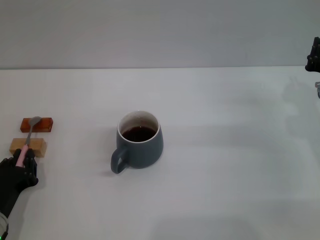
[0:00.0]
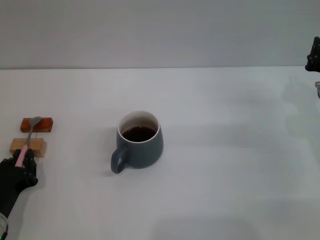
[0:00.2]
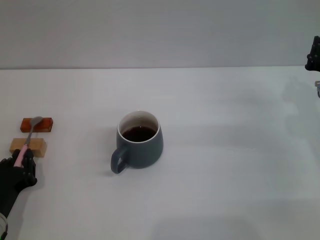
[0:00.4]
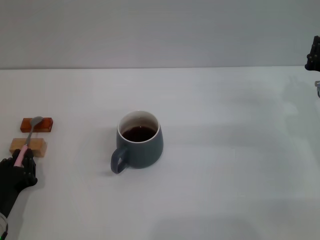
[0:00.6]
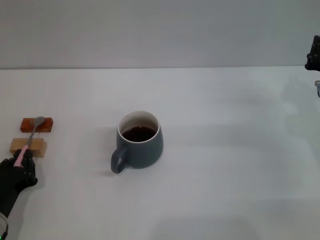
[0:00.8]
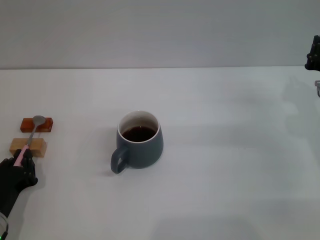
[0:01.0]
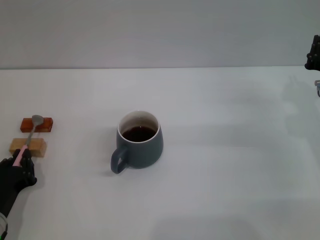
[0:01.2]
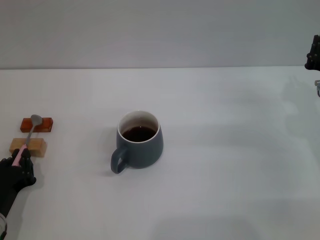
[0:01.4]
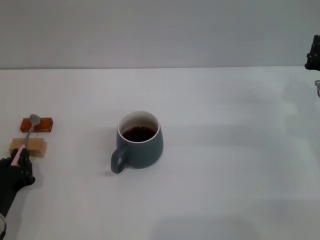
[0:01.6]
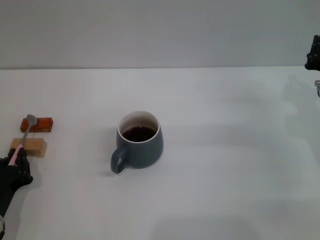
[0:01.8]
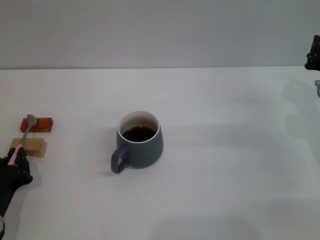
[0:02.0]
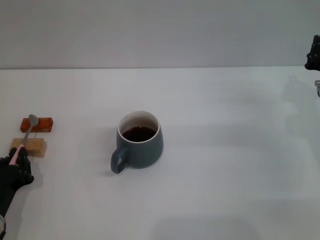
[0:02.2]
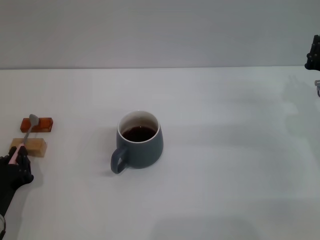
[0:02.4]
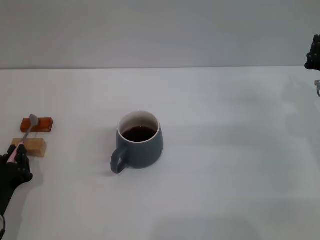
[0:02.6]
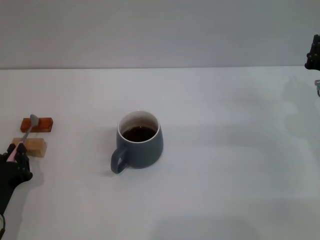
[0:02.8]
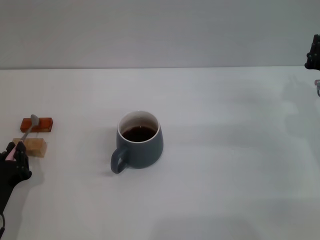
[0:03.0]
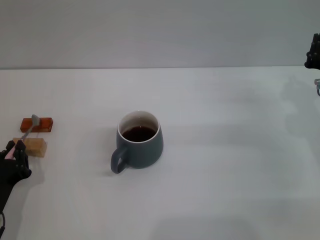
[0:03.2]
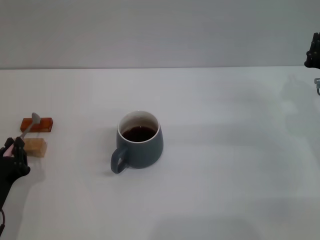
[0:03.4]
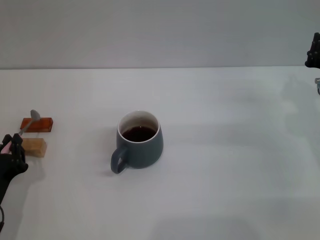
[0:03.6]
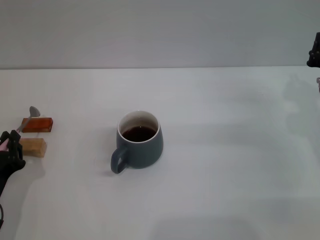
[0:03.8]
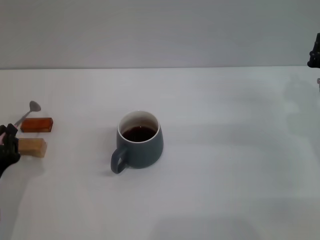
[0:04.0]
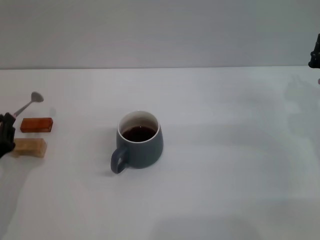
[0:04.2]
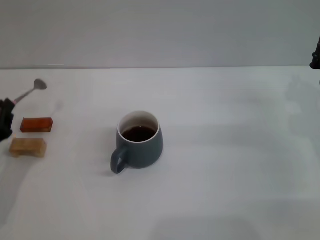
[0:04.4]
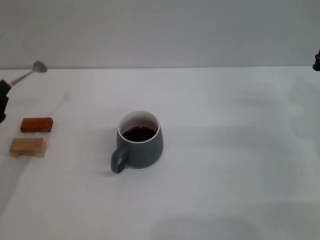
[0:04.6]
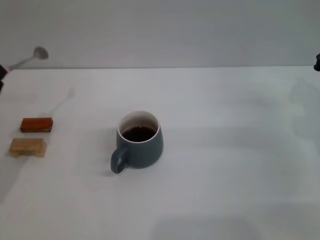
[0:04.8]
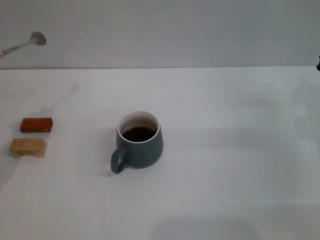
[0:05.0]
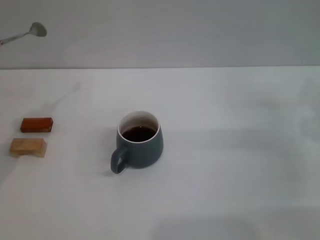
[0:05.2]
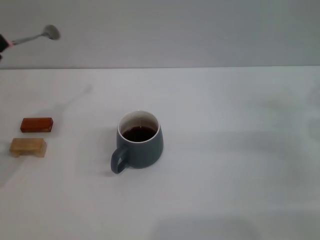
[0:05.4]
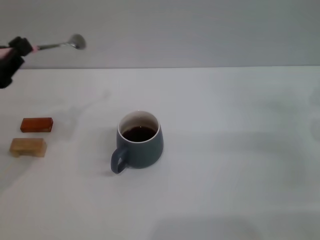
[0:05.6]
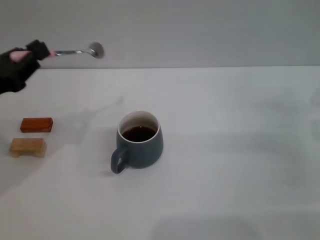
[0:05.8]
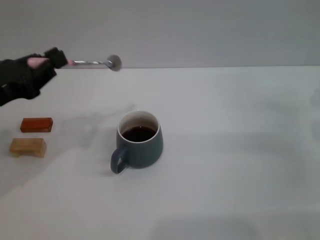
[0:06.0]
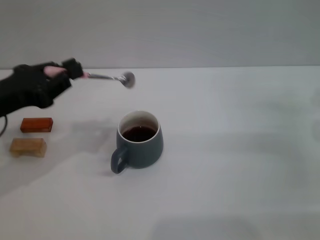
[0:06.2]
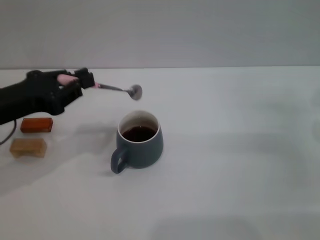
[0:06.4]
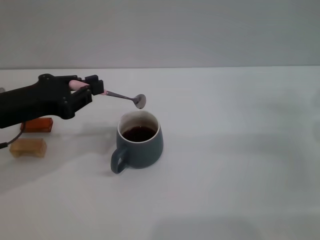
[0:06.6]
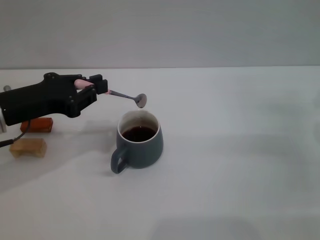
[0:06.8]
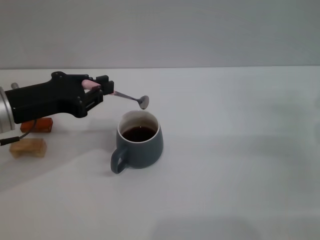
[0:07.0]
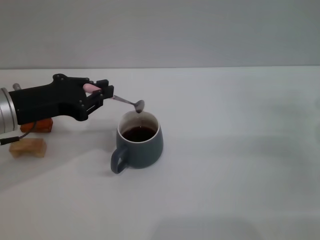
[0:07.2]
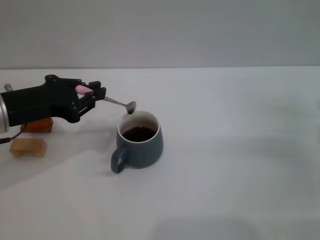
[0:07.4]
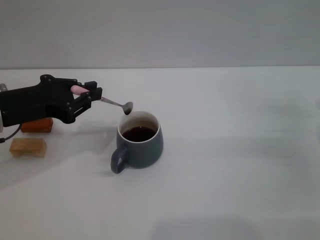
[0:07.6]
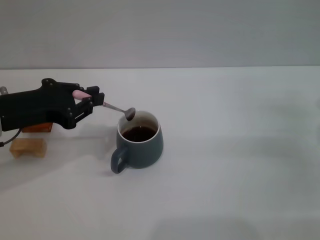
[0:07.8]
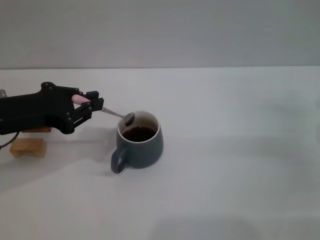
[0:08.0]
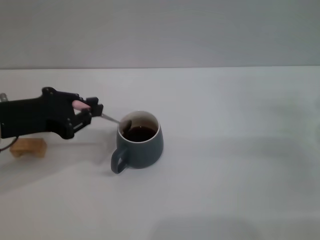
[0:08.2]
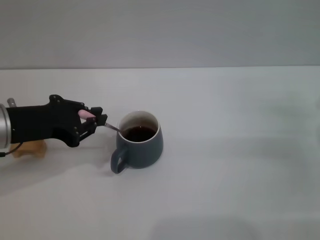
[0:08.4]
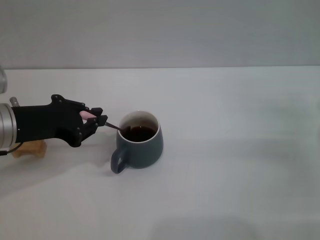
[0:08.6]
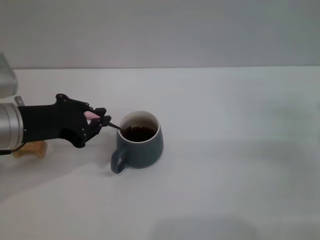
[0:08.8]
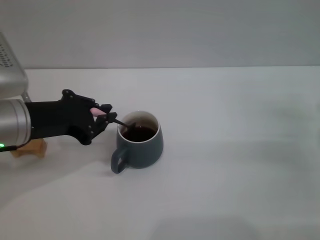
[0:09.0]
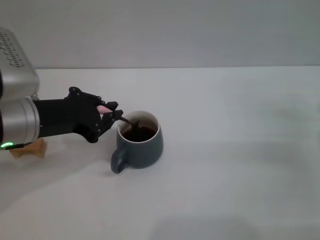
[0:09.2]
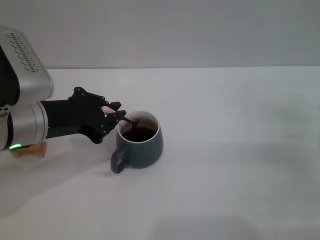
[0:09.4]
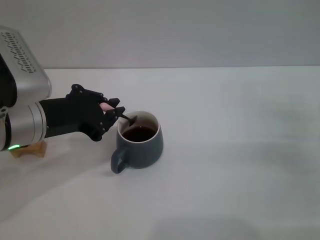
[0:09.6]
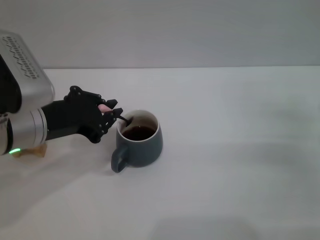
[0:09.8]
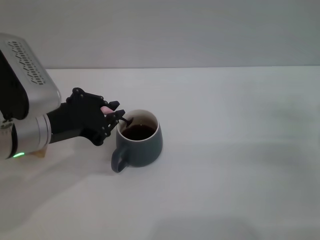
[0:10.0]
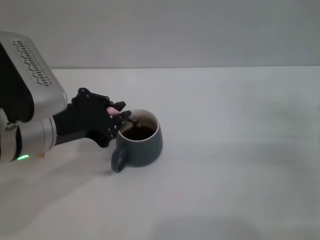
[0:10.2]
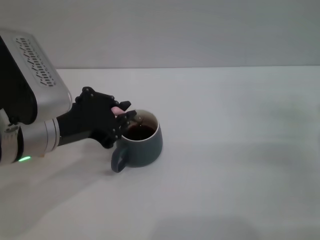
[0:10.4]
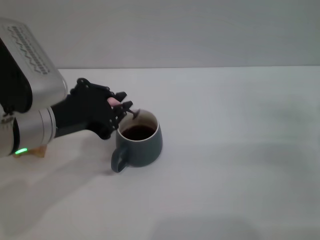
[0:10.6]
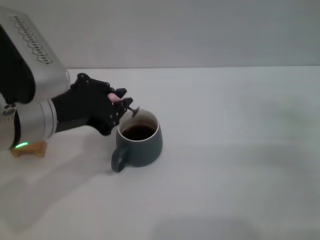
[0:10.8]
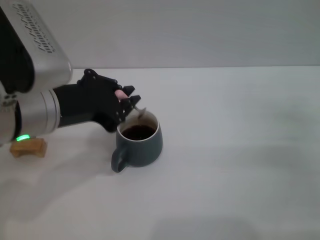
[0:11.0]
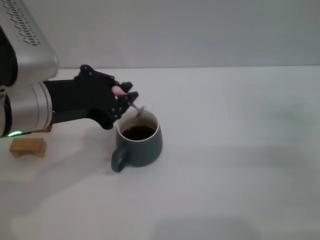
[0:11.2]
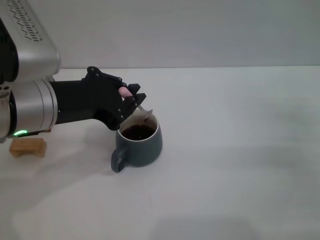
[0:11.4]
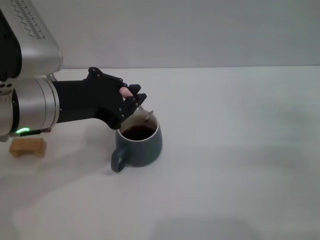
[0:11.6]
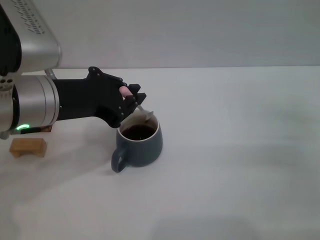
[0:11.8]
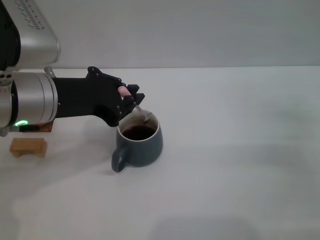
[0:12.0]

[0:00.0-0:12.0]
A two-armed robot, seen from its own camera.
Task of the whole recording: Move the grey cup to the center, lift the pink spoon, stir it three times in the cup, and put the spoon into the cup.
Step, 0:00.0 to 0:04.0: Pick up the spoon with the left gripper.
0:00.0 to 0:01.6: Both grippers stay about where they are.
0:01.6 to 0:03.0: Neither gripper changes place.
0:03.0 to 0:04.4: The left gripper is displaced upward by some 5 cm.
0:04.4 to 0:06.0: The left gripper moves upward, some 10 cm.
0:07.6 to 0:09.0: The grippers make only small movements.
0:09.0 to 0:10.4: The left gripper is displaced to the right by roughly 5 cm.
0:10.4 to 0:12.0: The grippers make only small movements.

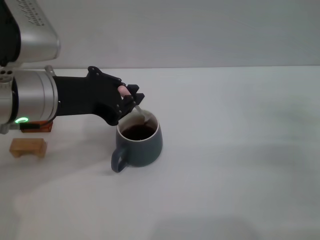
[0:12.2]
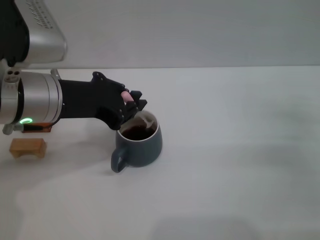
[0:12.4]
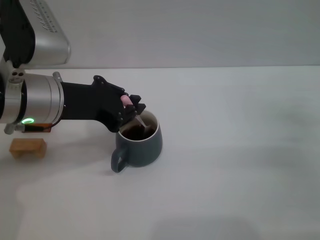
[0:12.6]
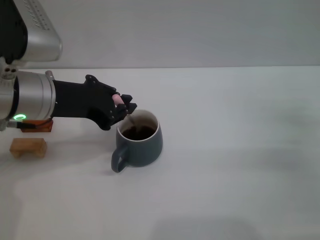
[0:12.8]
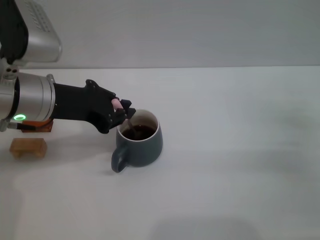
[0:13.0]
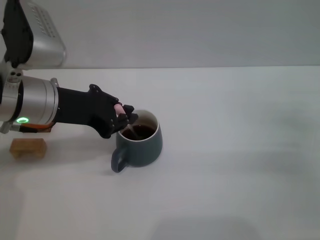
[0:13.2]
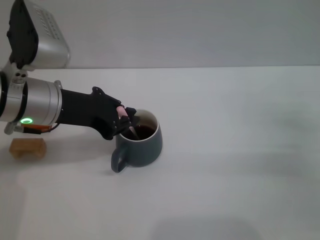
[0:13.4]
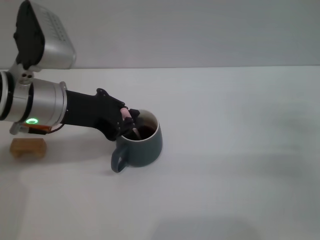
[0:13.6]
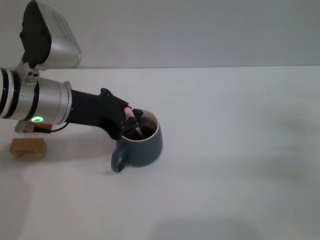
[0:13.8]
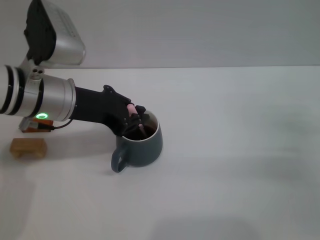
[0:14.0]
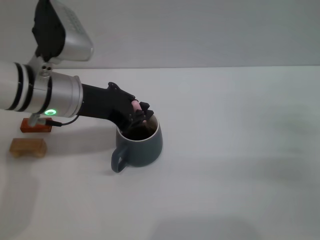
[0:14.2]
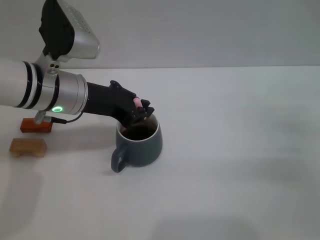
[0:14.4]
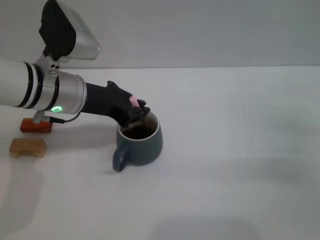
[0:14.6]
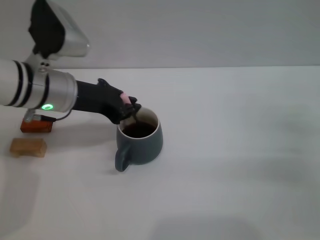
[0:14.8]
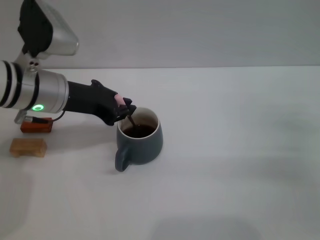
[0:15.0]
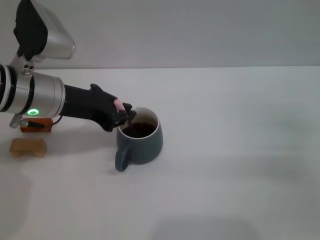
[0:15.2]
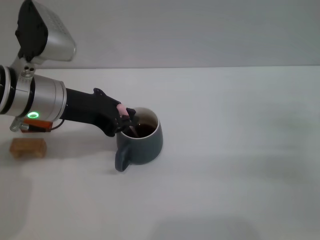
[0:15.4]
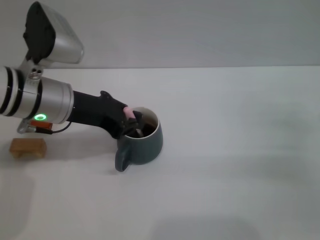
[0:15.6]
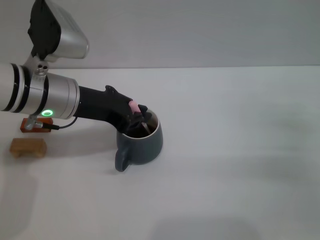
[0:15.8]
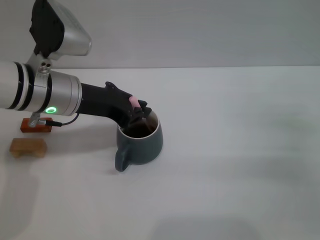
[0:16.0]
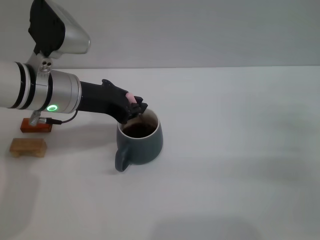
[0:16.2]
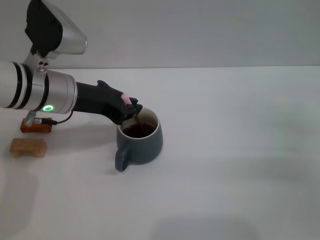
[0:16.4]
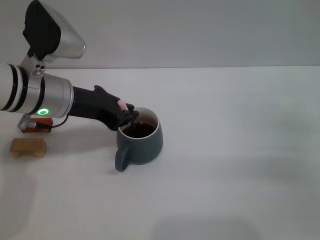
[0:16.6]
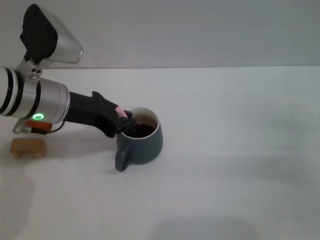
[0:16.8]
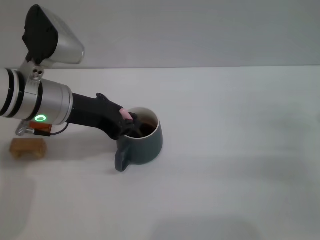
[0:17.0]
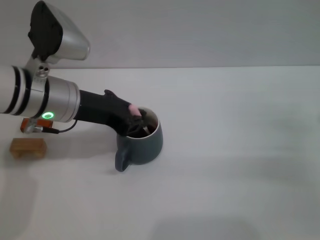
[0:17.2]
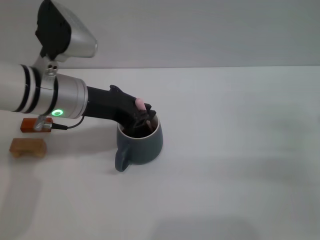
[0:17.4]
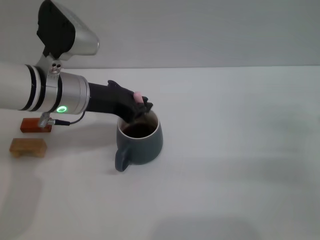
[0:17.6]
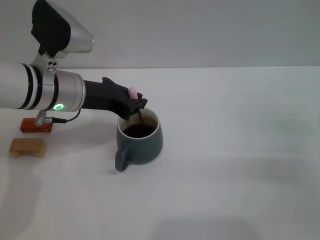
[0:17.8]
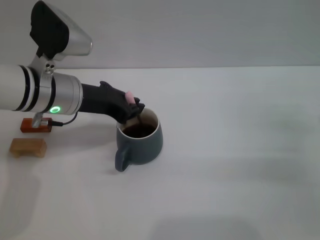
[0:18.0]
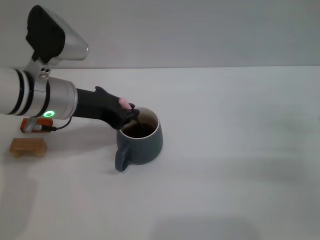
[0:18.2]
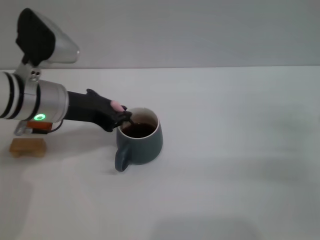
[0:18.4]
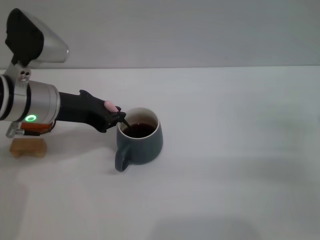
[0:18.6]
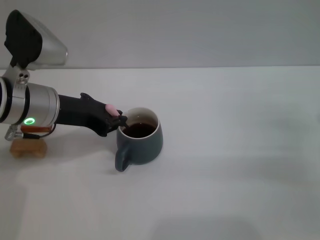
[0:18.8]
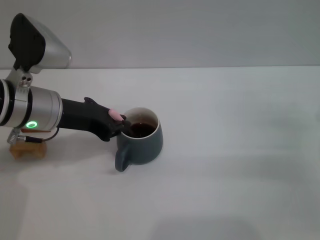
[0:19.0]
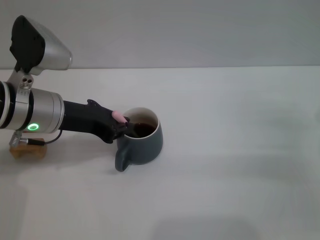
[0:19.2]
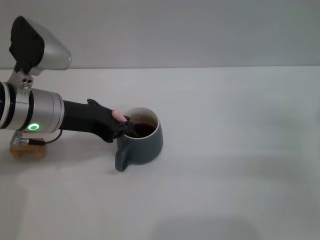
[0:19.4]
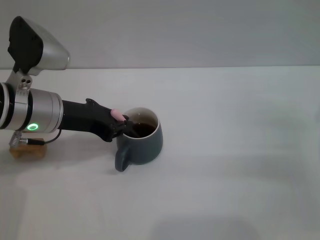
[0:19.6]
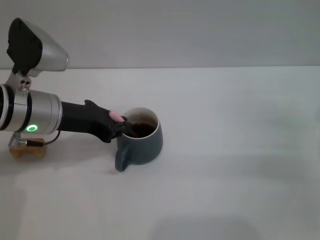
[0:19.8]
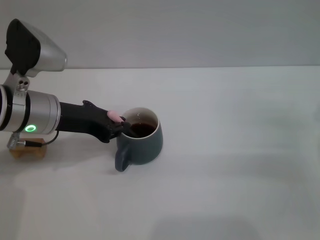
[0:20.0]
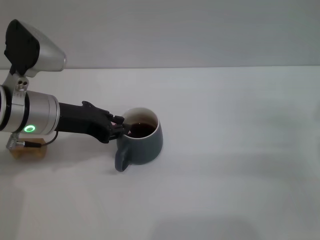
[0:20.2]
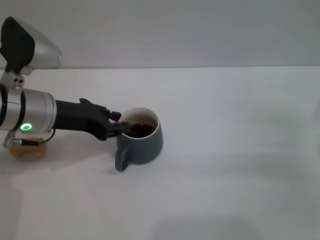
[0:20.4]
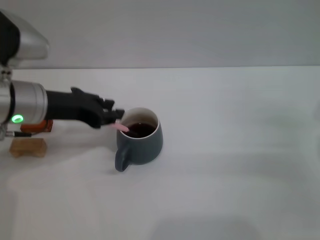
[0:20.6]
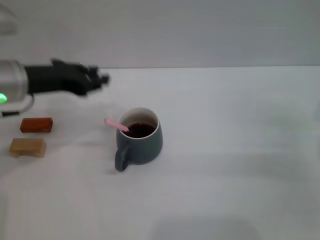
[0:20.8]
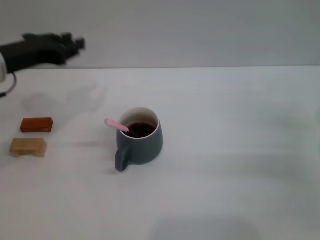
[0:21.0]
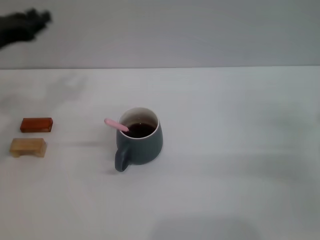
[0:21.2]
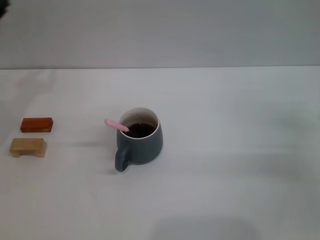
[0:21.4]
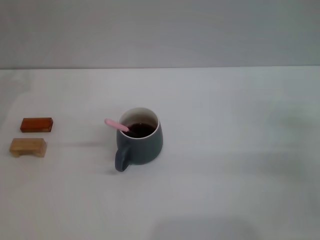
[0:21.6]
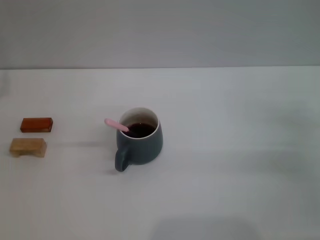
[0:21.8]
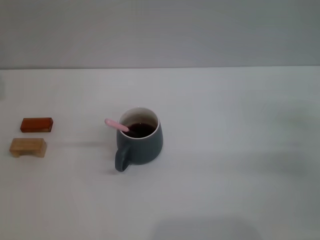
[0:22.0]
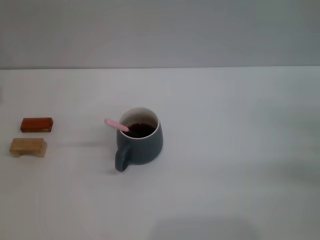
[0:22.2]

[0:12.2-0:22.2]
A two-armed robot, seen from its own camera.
Task of the whole recording: Move the grey cup to the center, lift the pink spoon, stir it three times in the cup, and put the spoon into the cup.
Step, 0:12.2 to 0:20.8: Stir the coffee in the cup with the left gripper.
0:12.2 to 0:13.6: The left gripper moves about 5 cm.
0:13.6 to 0:19.4: The grippers stay close to where they were, moving slightly.
0:19.4 to 0:20.8: The left gripper shifts by some 5 cm.
0:20.8 to 0:22.2: The left gripper travels to the left and downward by some 15 cm.
